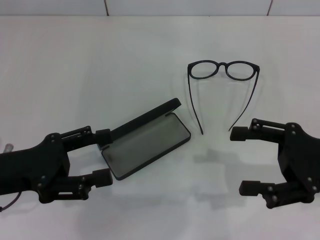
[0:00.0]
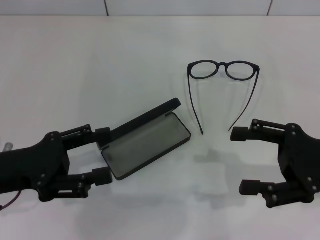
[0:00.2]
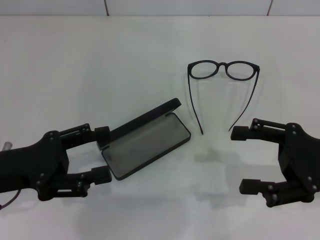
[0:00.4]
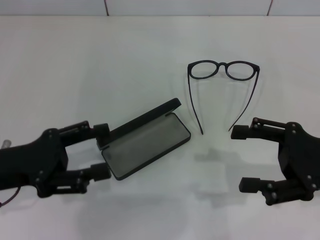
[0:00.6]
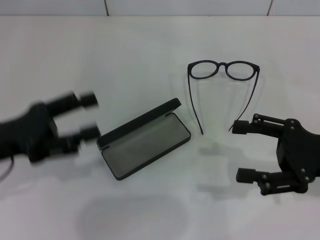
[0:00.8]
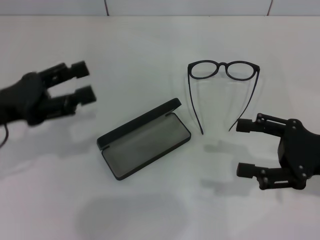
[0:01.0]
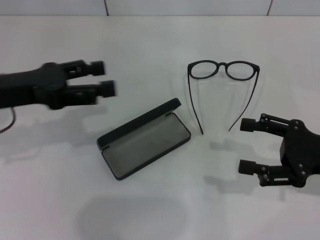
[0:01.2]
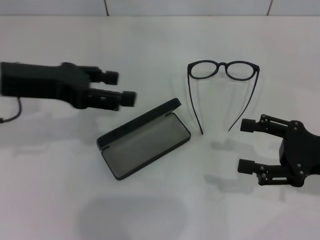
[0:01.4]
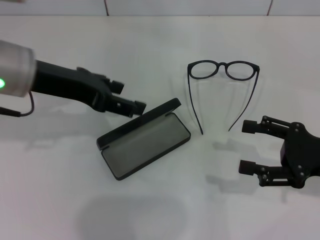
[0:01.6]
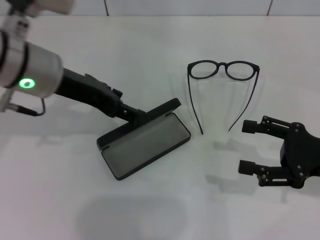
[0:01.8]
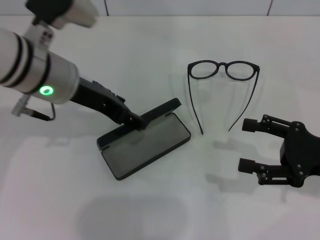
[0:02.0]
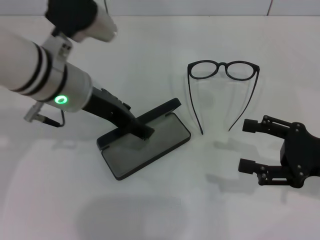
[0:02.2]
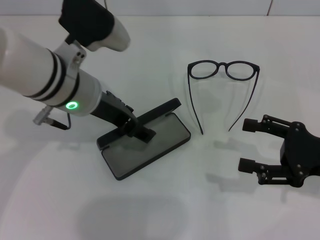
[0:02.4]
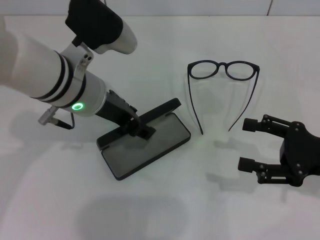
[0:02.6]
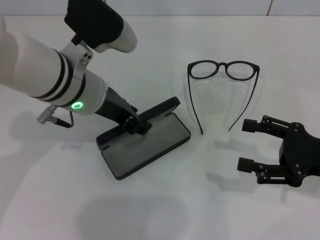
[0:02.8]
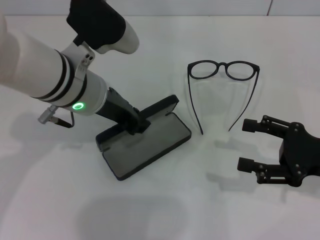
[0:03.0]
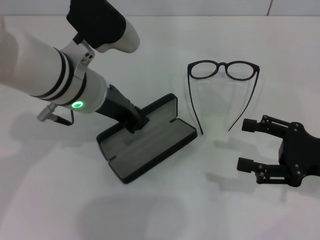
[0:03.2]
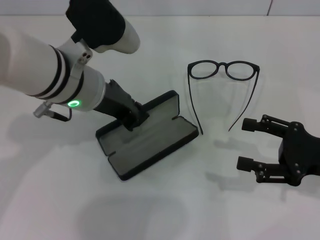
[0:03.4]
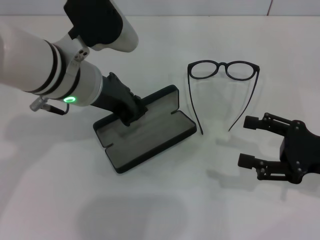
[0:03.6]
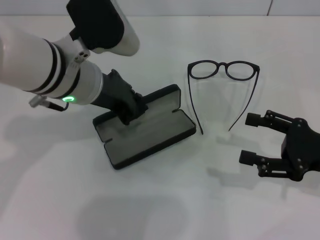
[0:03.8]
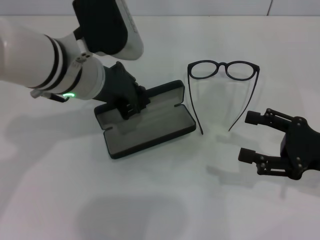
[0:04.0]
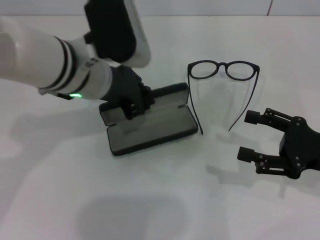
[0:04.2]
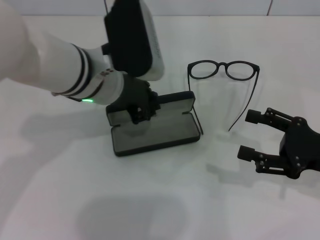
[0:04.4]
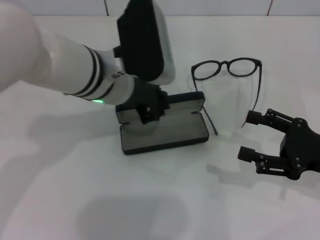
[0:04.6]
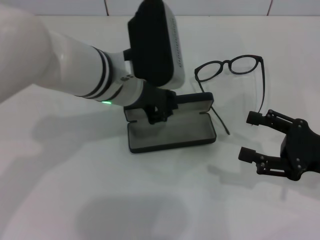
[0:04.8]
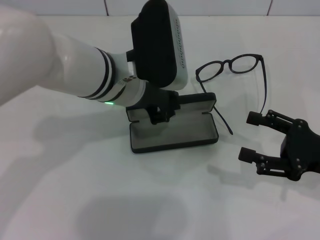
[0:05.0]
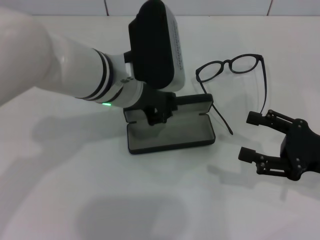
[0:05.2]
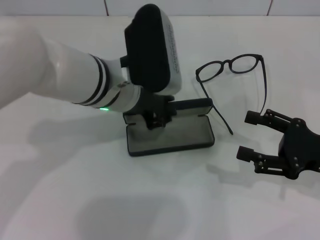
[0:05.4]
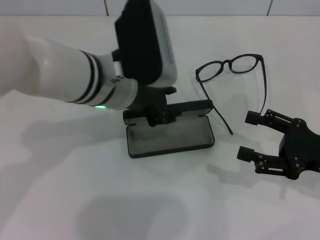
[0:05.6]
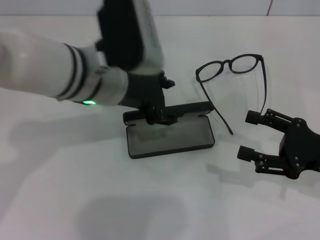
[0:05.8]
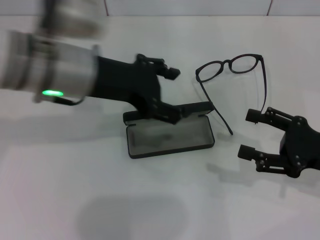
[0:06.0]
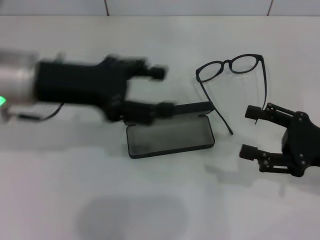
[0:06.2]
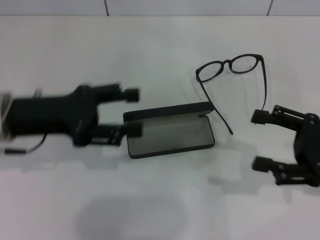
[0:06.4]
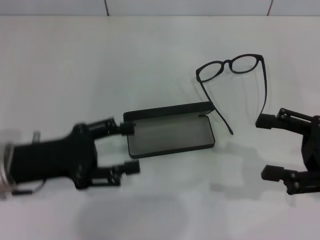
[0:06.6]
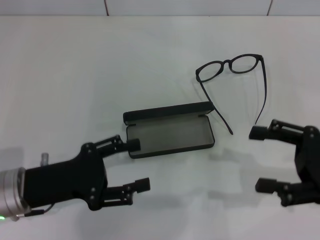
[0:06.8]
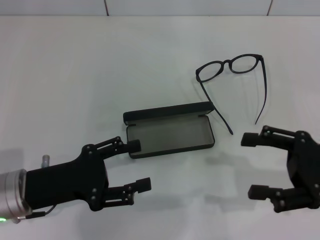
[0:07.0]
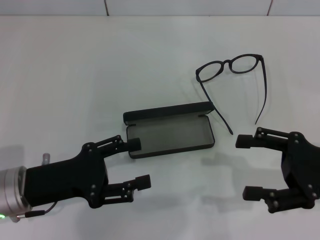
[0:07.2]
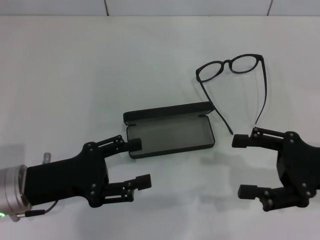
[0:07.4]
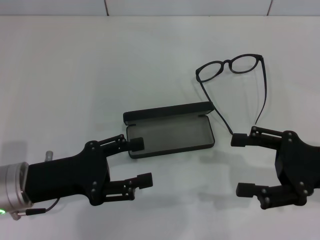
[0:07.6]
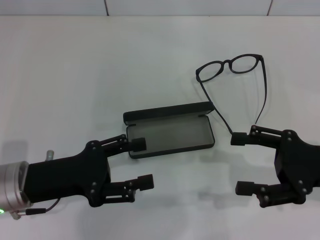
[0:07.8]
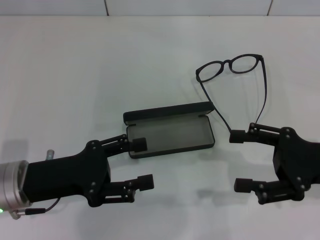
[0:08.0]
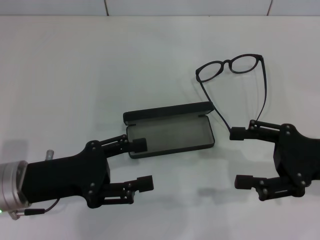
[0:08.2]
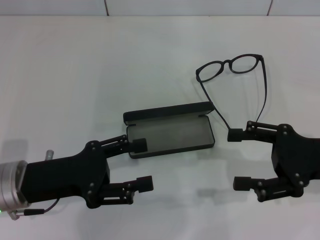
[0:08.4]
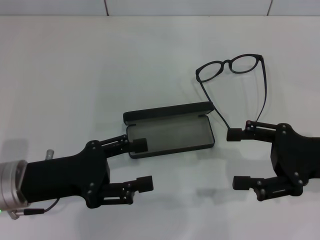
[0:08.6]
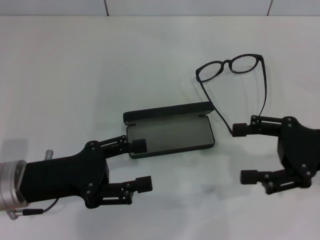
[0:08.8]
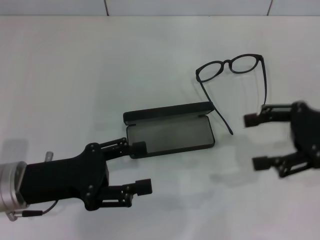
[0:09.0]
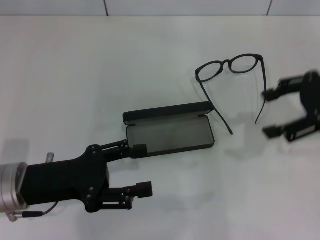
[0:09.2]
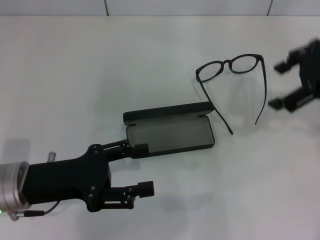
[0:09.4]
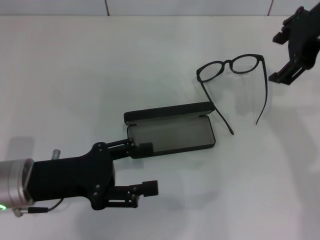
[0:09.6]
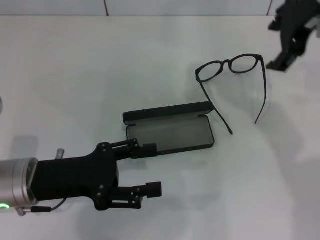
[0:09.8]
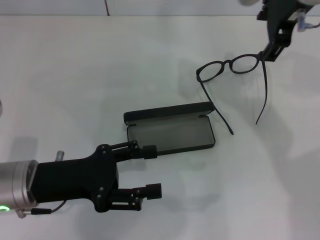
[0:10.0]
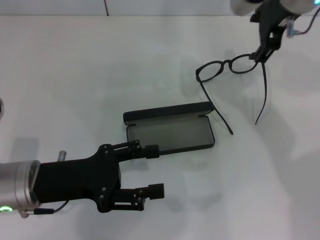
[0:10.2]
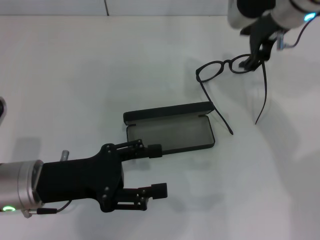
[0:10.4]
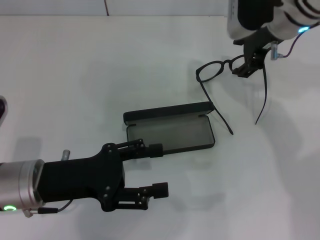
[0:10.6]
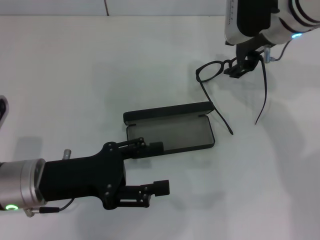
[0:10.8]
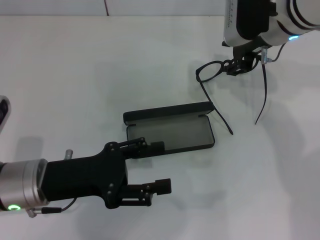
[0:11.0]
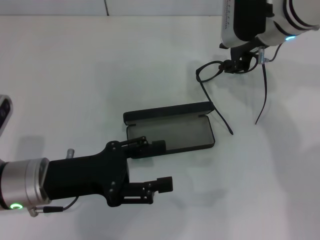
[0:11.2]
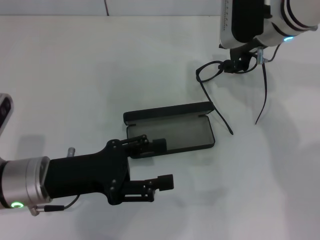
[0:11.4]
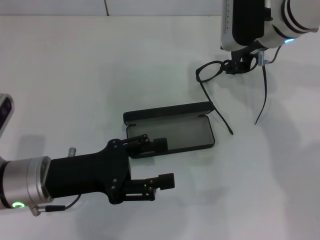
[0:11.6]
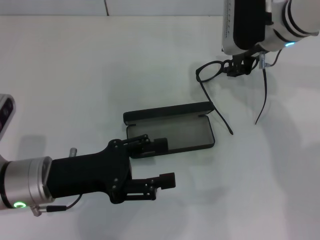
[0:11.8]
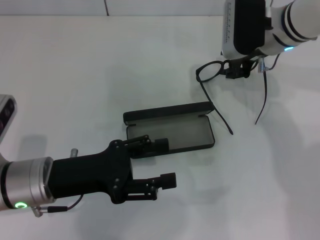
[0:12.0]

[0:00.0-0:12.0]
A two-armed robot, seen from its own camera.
Step, 0:00.0 to 0:03.0: Grab the glasses case with your left hand.
Step, 0:03.2 to 0:05.8: Place the glasses case in the center of the table with your left hand.
0:00.0 to 0:01.6: The left gripper shifts some 15 cm upward, forward and to the right.
0:01.6 to 0:03.0: The left gripper shifts some 10 cm to the right, and closes.
0:04.4 to 0:06.0: The left gripper ends up approximately 5 cm from where it was, and opens its fingers.
0:06.0 to 0:07.6: The left gripper moves downward, backward and to the left, approximately 20 cm.
0:07.6 to 0:09.0: The right gripper shifts about 5 cm upward.
0:09.0 to 0:10.4: The right gripper travels to the left, forward and upward by some 20 cm.
0:10.4 to 0:12.0: The right gripper shifts about 5 cm downward, and closes its fingers.

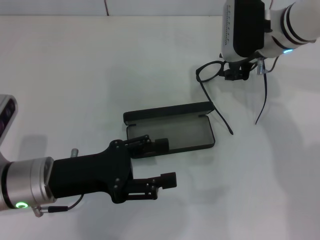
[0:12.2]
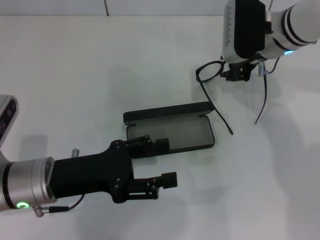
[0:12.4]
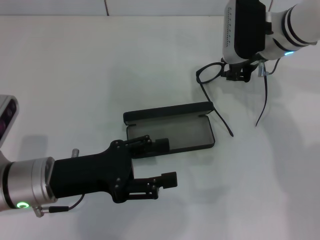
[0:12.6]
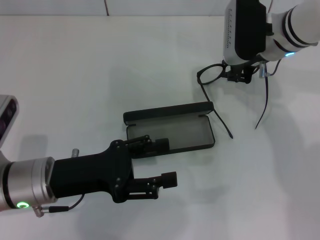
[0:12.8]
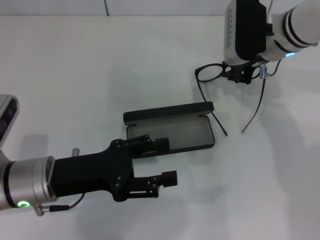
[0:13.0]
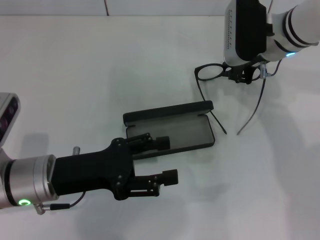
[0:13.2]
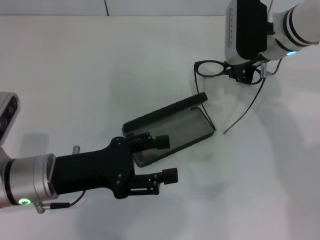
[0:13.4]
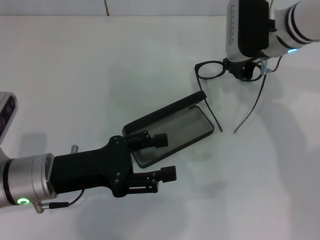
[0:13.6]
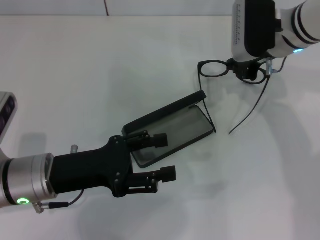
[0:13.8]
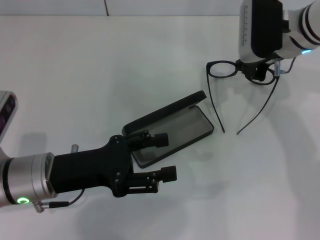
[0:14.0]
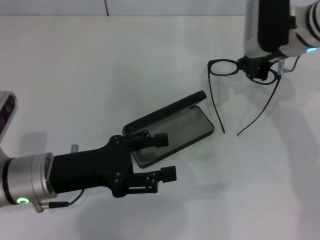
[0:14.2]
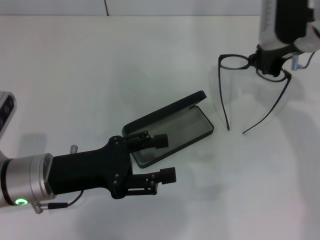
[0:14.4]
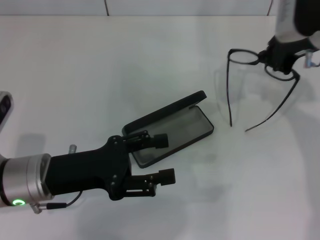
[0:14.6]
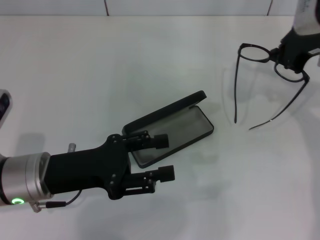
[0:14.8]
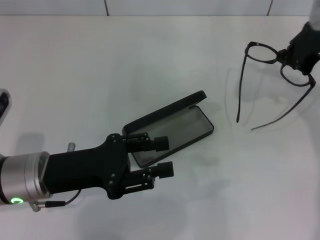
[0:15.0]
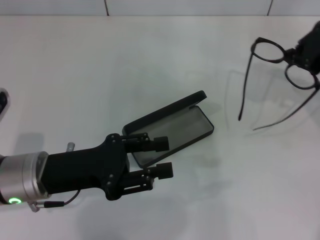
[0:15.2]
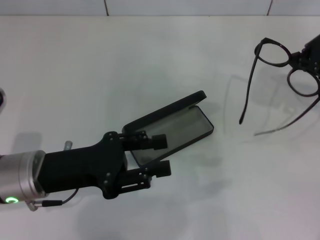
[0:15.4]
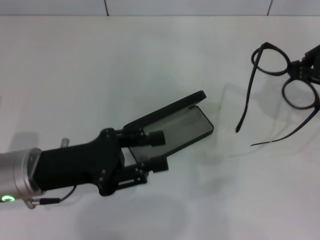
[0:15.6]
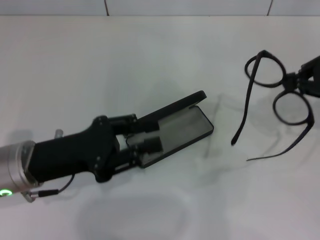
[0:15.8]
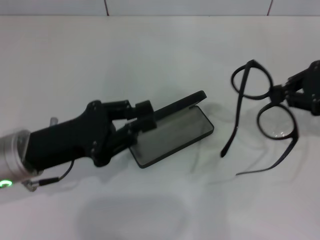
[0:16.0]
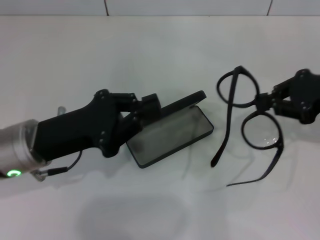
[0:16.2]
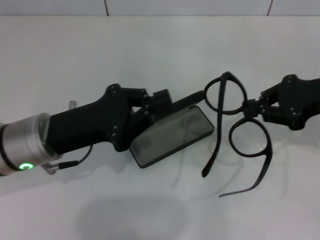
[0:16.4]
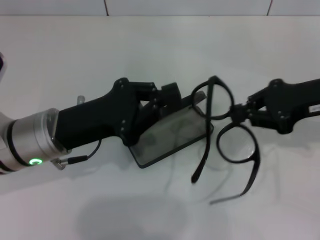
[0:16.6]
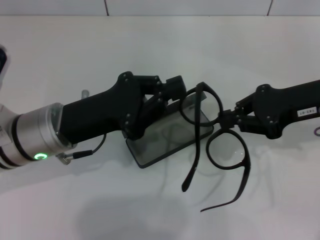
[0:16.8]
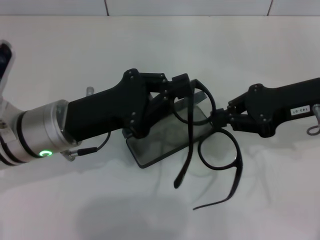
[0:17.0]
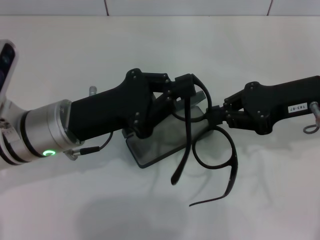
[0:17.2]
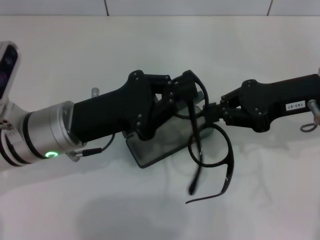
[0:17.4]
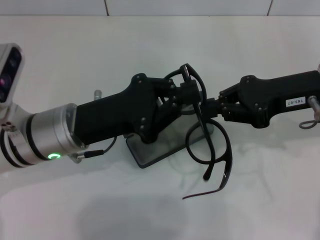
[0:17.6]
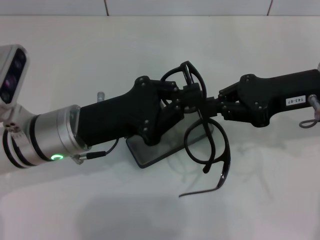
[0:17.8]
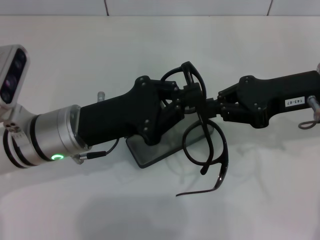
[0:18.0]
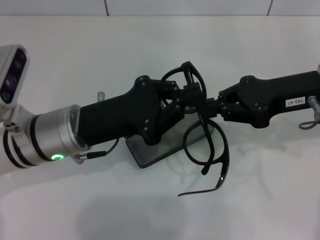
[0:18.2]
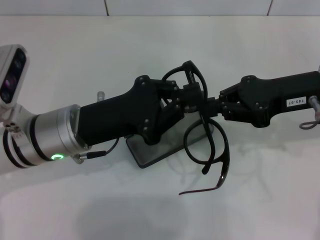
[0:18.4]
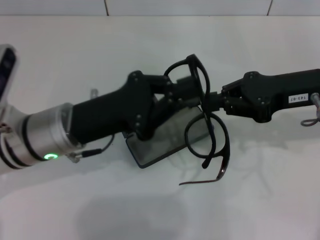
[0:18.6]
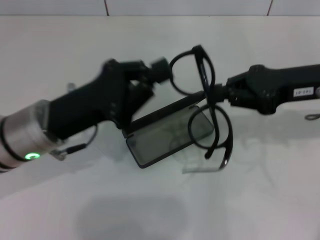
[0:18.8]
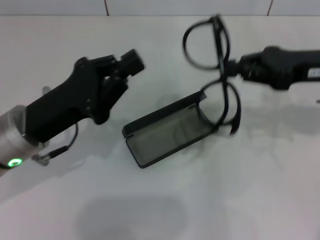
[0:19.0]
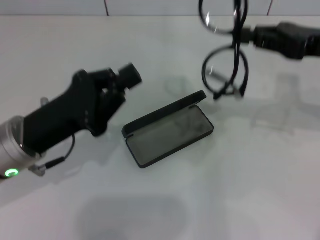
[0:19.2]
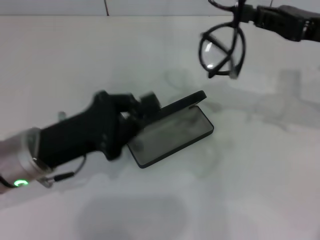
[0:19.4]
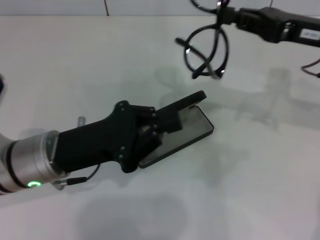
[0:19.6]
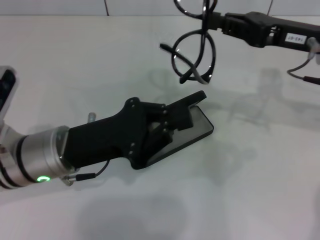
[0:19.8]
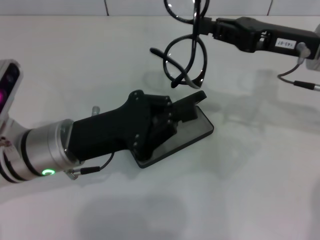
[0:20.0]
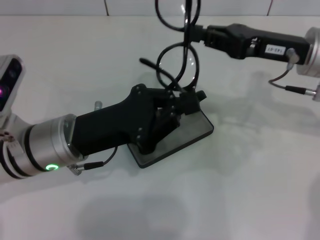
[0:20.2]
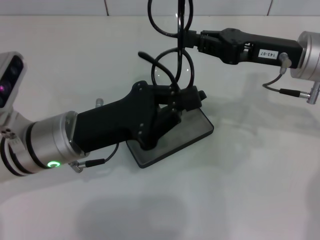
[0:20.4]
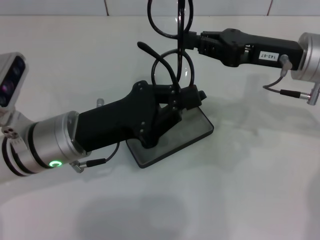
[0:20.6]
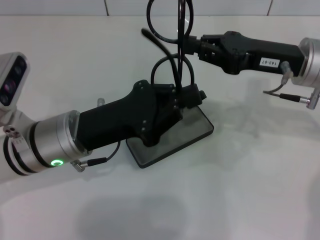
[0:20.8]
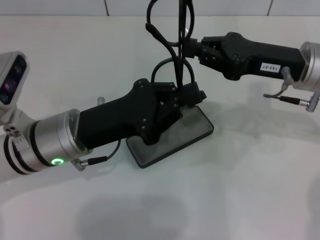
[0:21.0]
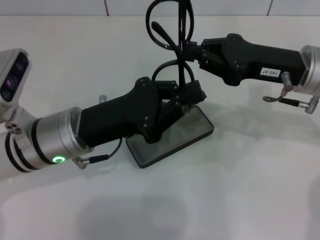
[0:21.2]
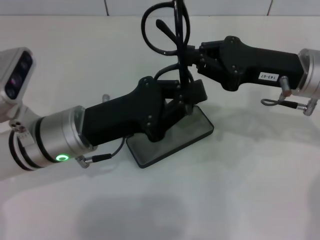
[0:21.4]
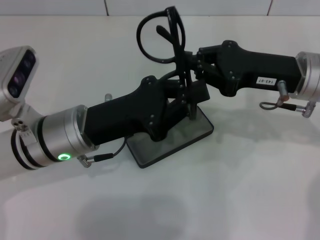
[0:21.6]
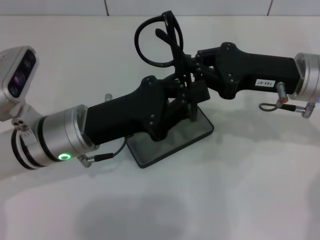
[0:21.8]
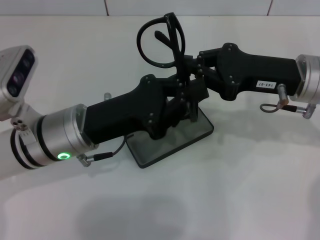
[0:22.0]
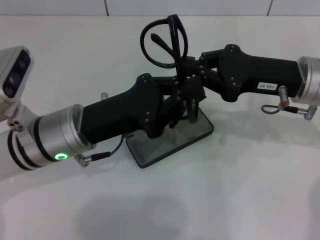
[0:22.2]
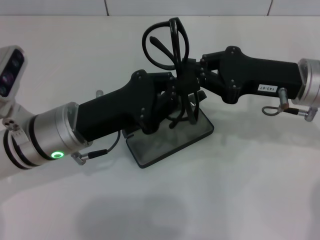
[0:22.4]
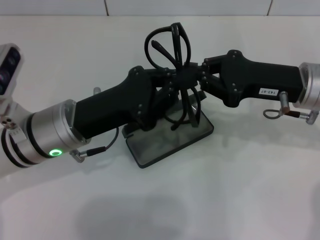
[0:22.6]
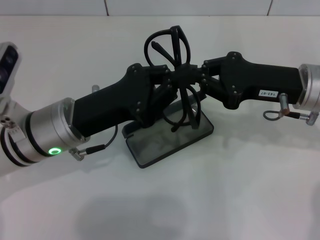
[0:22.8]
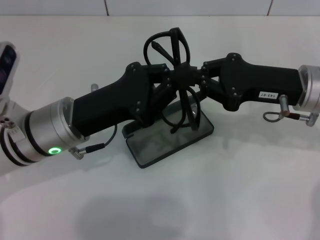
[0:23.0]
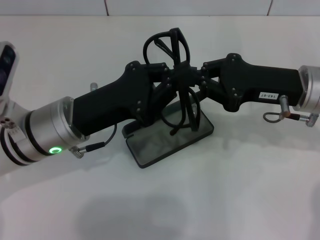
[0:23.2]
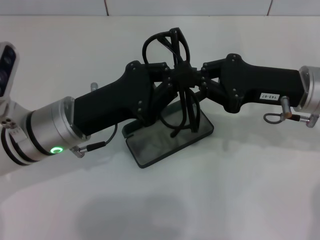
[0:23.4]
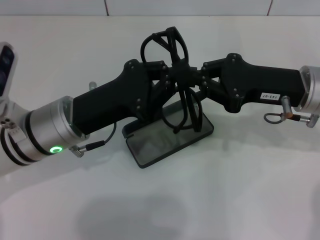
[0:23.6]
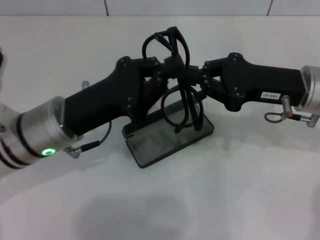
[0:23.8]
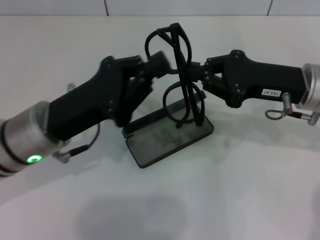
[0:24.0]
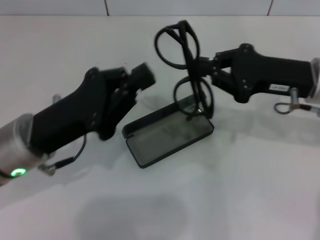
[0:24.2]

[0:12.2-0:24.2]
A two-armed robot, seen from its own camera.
Step, 0:13.4 to 0:13.8: Lift the glasses with your right hand.
Step, 0:14.0 to 0:21.6: Fold the frame with your left hand.
0:12.2 to 0:13.8: The right gripper closes its fingers.
0:13.8 to 0:15.2: The right gripper moves to the right and upward, about 10 cm.
0:15.2 to 0:16.6: The left gripper closes up; the right gripper heads backward, covering some 5 cm.
0:16.6 to 0:18.2: The grippers stay close to where they were, moving slightly.
